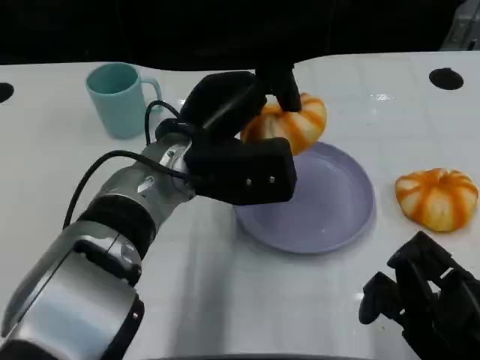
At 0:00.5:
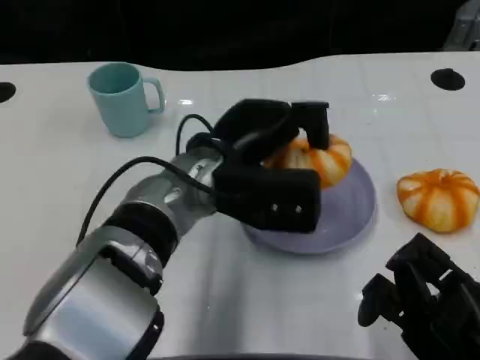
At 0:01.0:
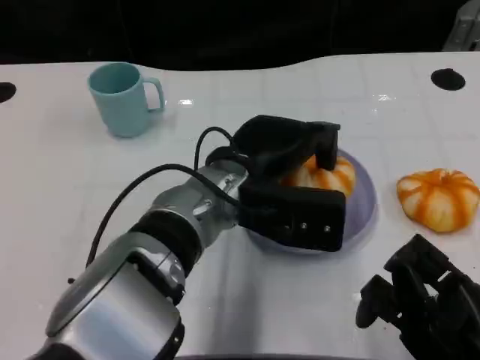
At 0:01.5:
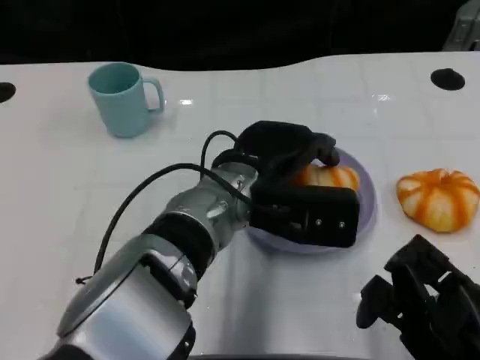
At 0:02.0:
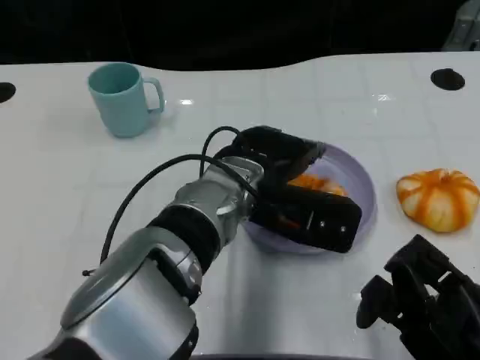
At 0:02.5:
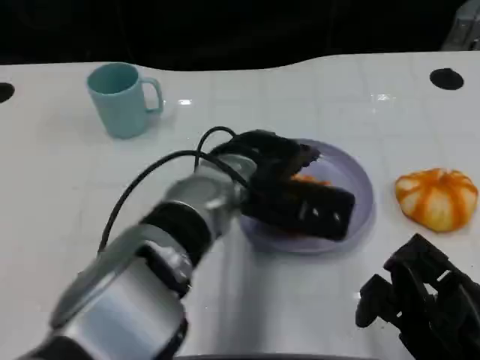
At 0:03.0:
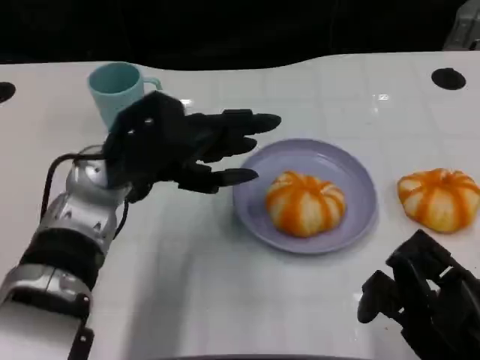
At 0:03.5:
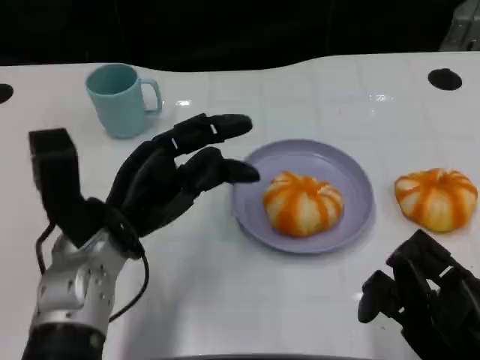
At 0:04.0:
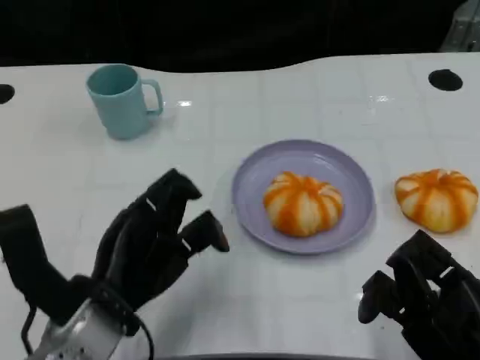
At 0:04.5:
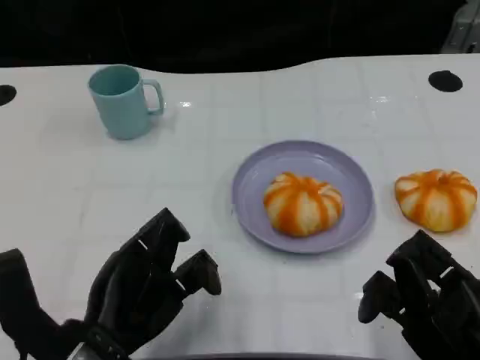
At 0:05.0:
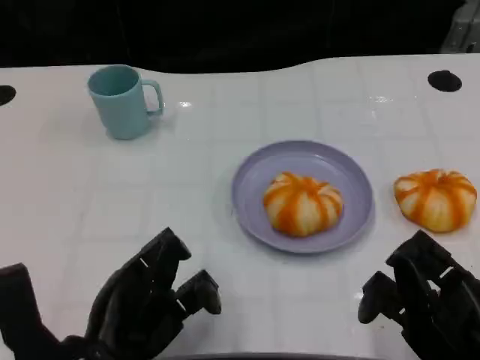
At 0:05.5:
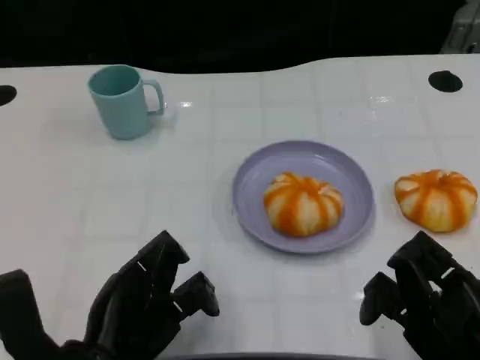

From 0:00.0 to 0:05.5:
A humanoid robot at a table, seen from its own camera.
Task of the whole recording: Grasp the bread from the table and place it into the plate.
From 0:00.0 to 0:02.0: The left hand goes some 5 cm to the right.
From 0:02.0 to 0:03.5: The left hand goes roughly 15 cm to the left.
From 0:03.5 to 0:05.5: The left hand heads backward, covering about 10 cm.

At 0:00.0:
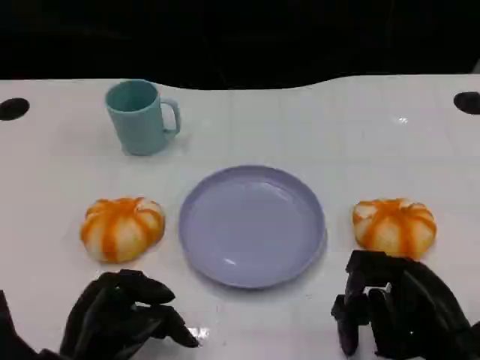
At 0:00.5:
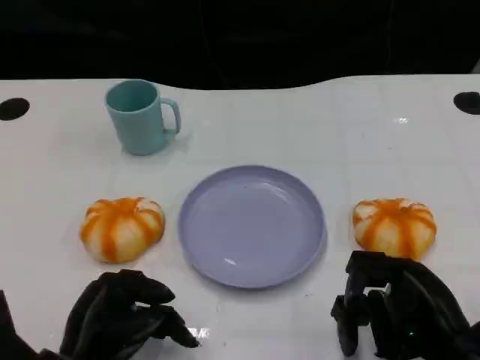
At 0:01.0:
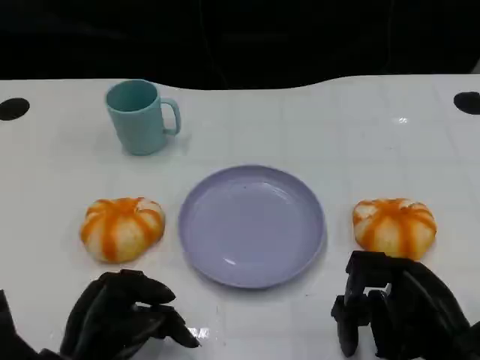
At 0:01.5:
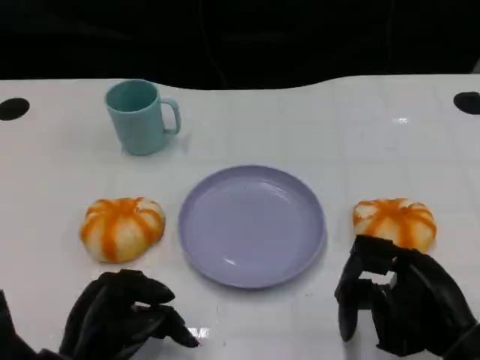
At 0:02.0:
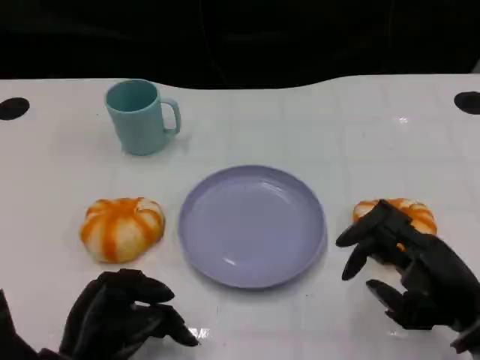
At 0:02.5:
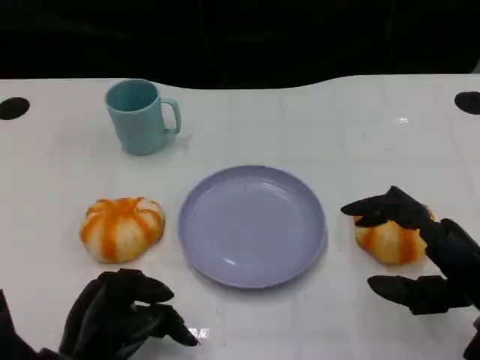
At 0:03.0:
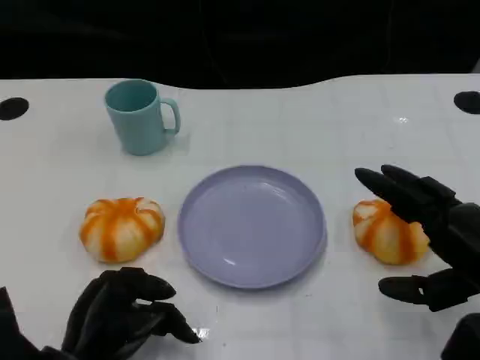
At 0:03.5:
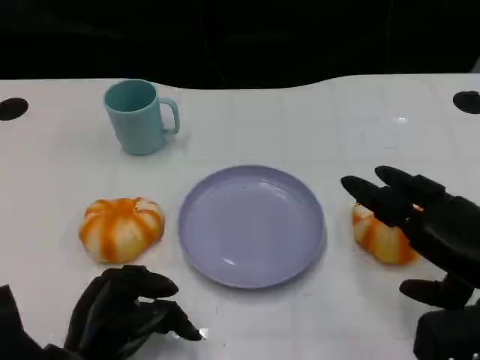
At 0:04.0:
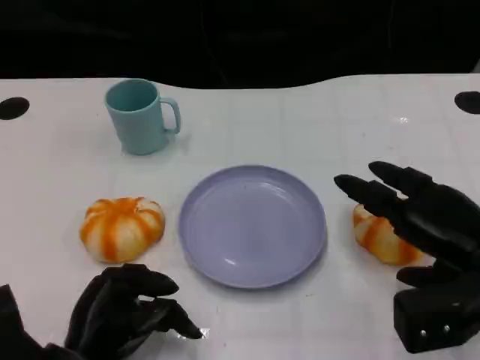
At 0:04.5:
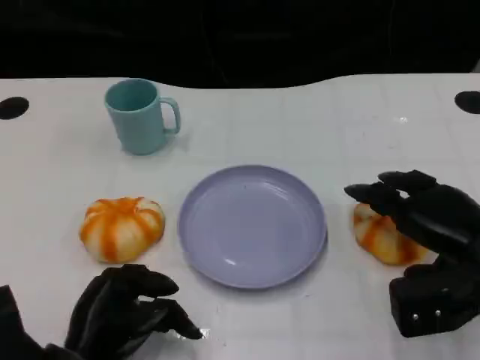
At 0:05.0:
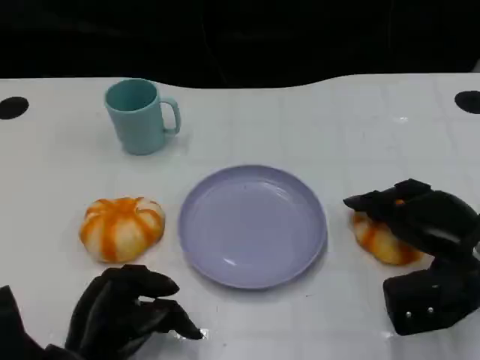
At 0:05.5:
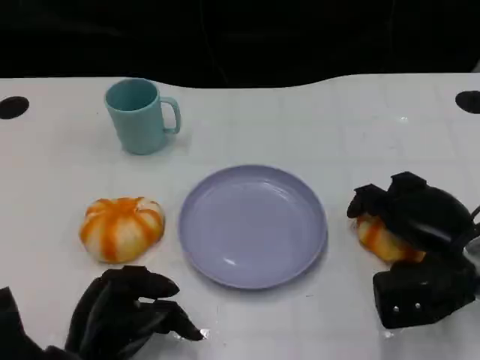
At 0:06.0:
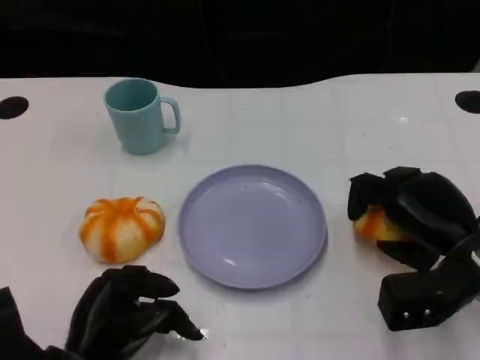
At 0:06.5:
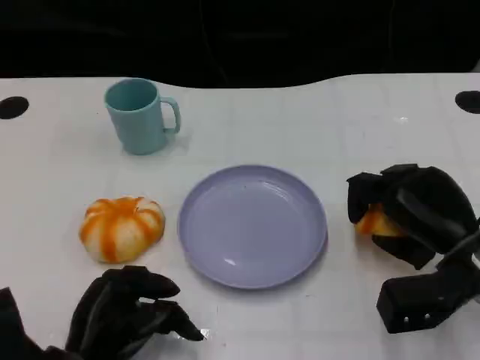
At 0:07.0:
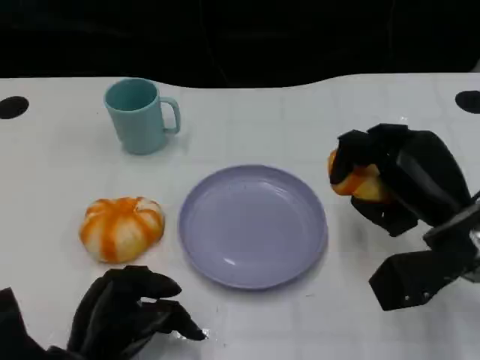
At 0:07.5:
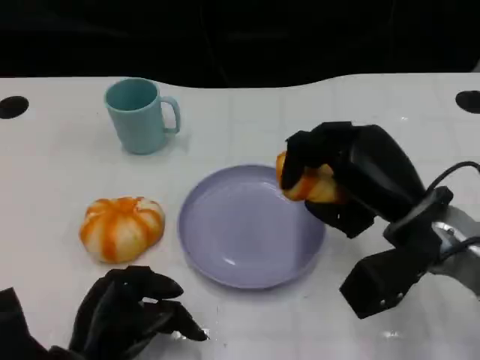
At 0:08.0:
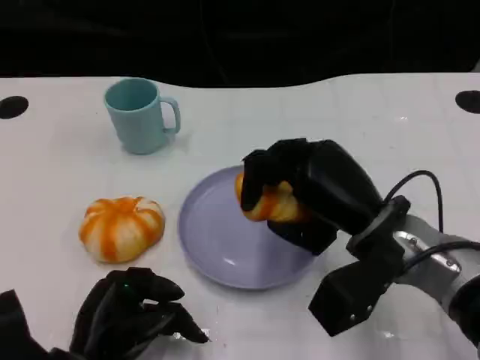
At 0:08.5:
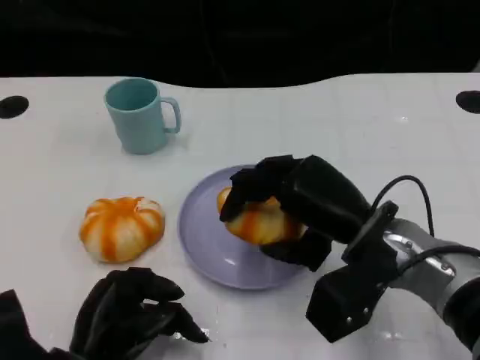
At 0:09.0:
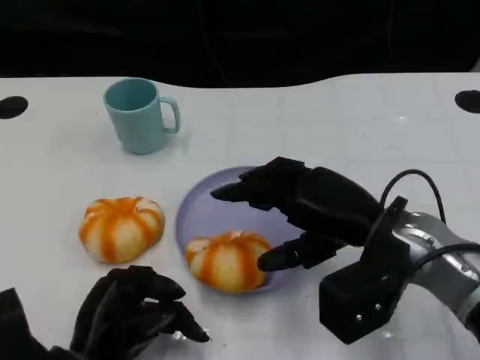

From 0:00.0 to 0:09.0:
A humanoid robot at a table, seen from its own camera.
Task of the whole recording: Grasp the bread from the table and place it into the plate.
From 0:02.0 to 0:04.5: The right hand goes roughly 5 cm forward.
From 0:07.0 to 0:09.0: The right hand travels to the left by about 5 cm.

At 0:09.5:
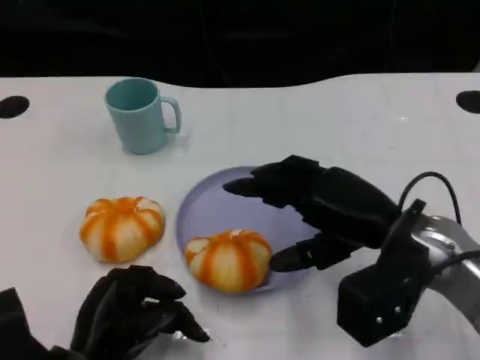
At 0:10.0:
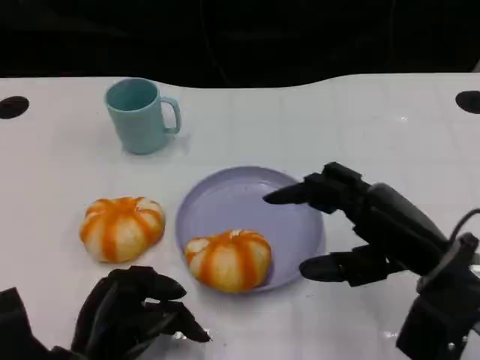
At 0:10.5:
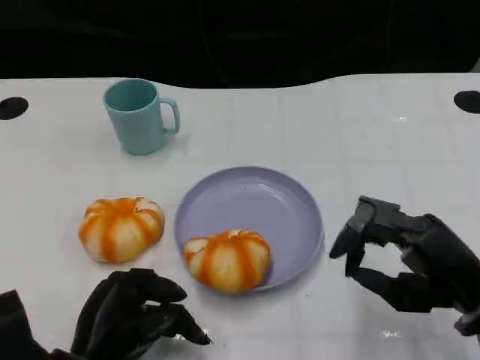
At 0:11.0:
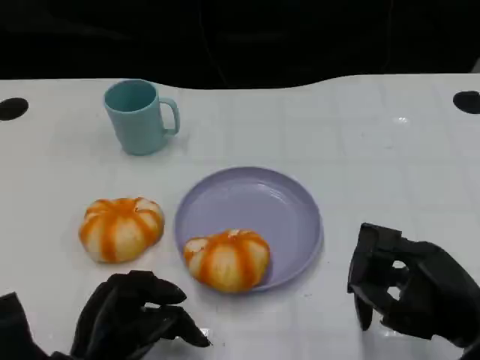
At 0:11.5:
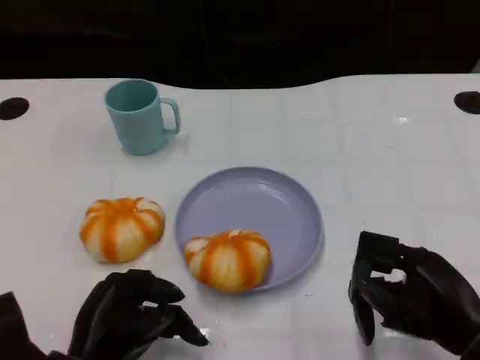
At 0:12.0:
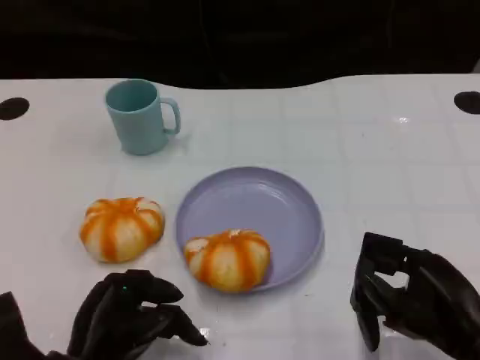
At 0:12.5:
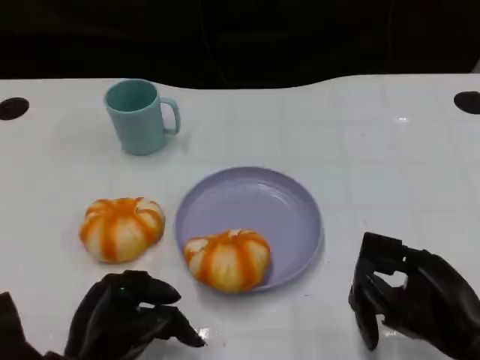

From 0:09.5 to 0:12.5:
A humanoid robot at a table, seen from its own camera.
Task of the whole recording: Grasp the bread from the table and place it into the plate.
From 0:09.5 to 0:11.0: The right hand travels backward and to the right by about 10 cm.
From 0:11.0 to 0:12.5: There are only small adjustments of the hands.

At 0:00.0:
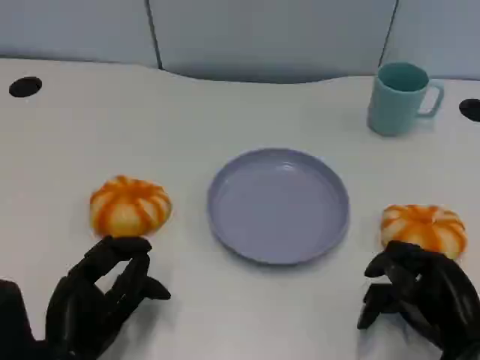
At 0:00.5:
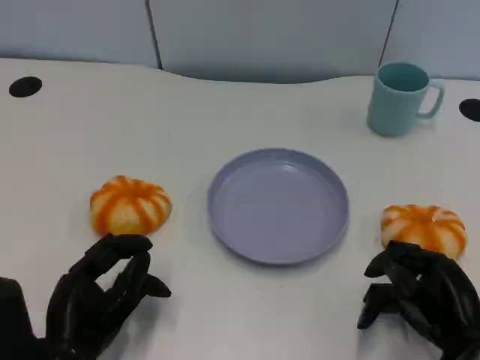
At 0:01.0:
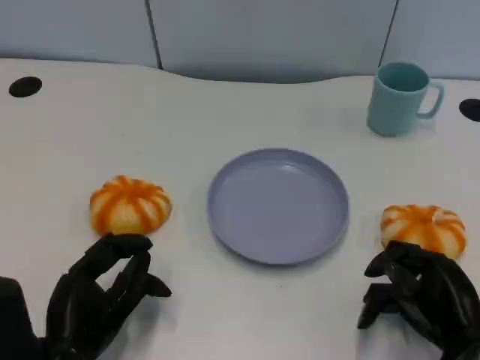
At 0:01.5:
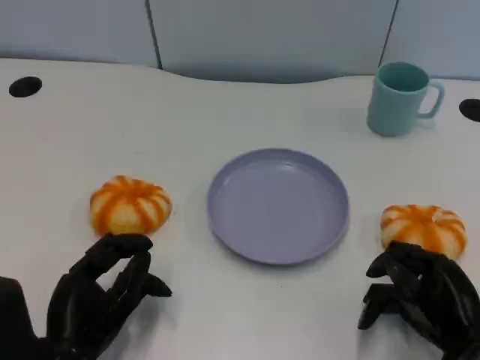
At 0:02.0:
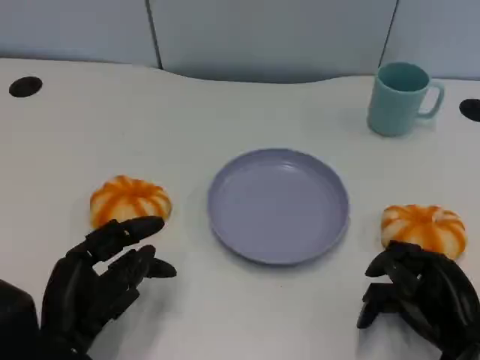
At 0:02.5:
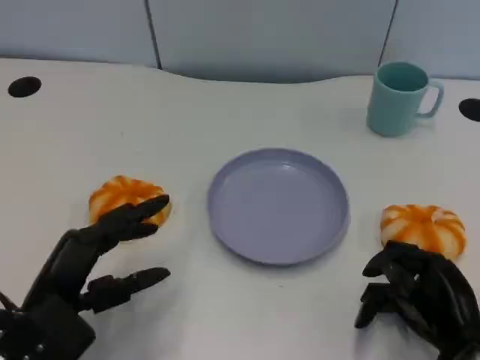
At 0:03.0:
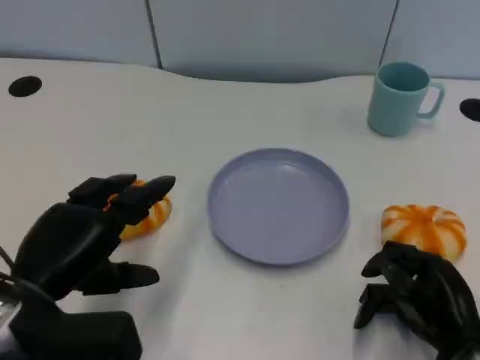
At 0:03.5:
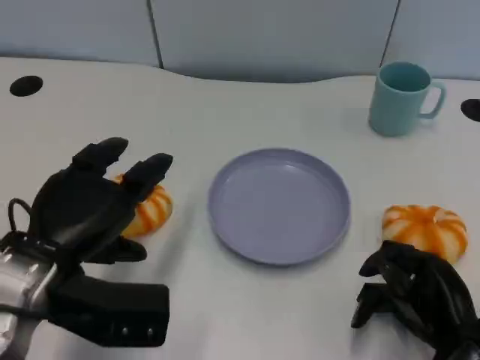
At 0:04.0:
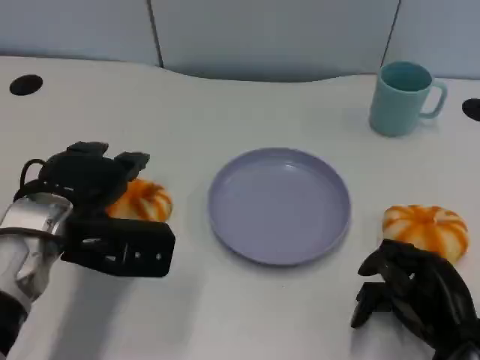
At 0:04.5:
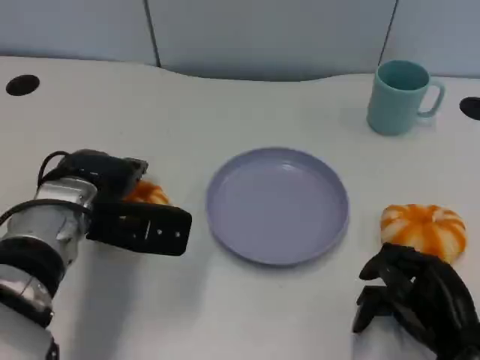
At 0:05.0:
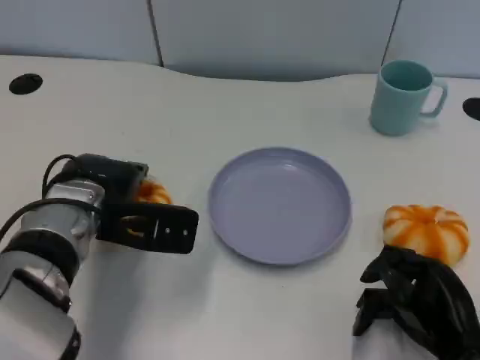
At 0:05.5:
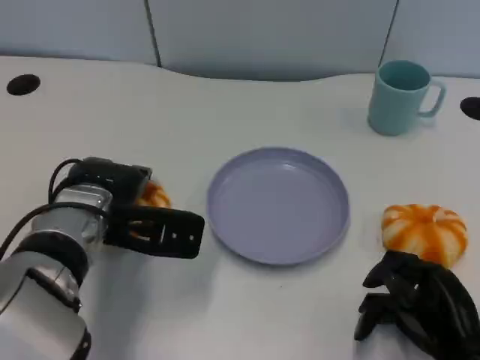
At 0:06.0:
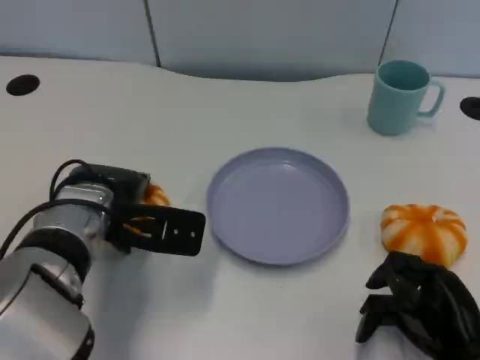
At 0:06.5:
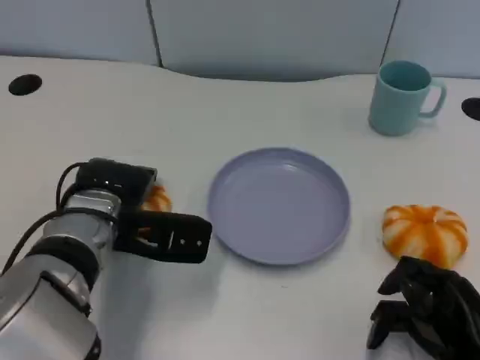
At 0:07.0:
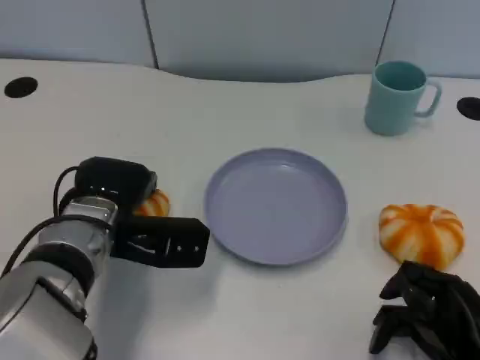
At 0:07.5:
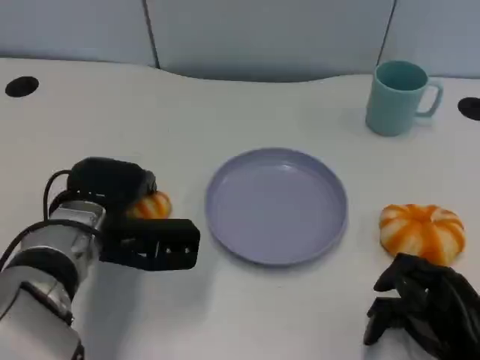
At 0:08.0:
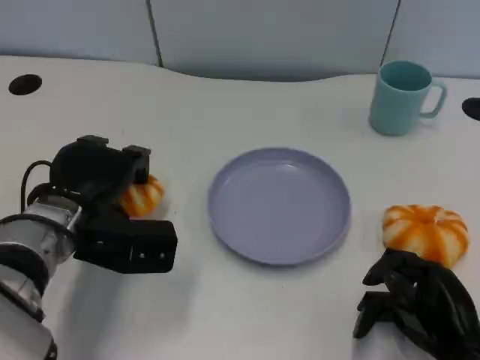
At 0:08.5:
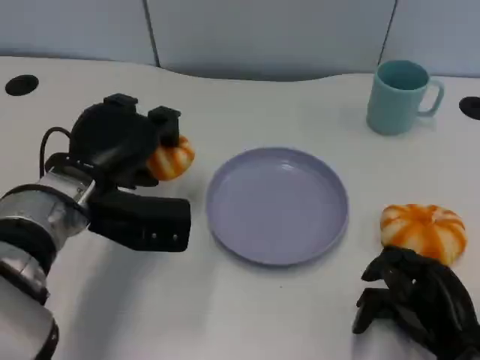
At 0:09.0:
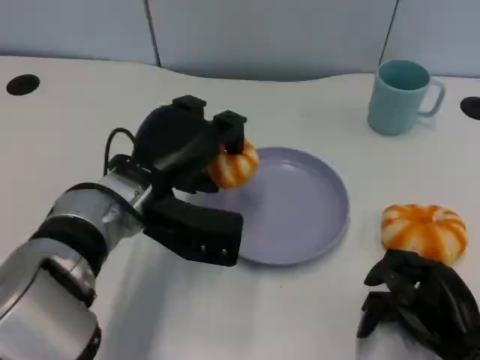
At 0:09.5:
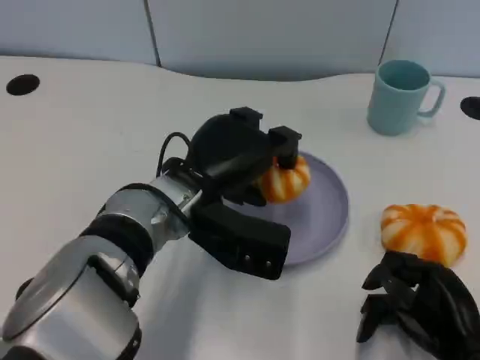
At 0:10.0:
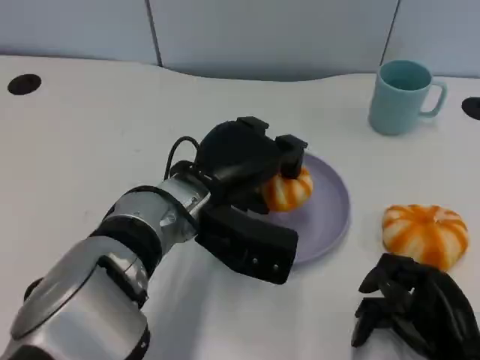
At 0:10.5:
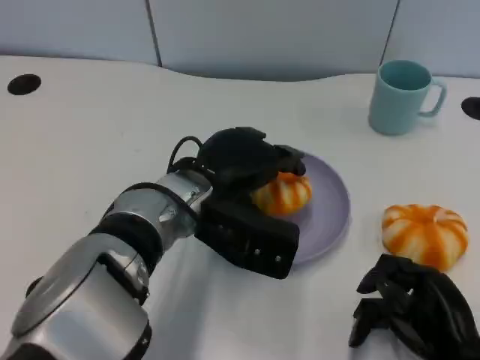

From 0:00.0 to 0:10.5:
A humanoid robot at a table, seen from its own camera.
Task of the whole recording: Grasp the bread from the table and place it into the plate.
From 0:02.0 to 0:04.0: The left hand is displaced forward and upward by some 15 cm.
From 0:04.0 to 0:06.5: The left hand changes place by some 5 cm.
From 0:08.5 to 0:10.5: The left hand is displaced to the right by roughly 10 cm.
